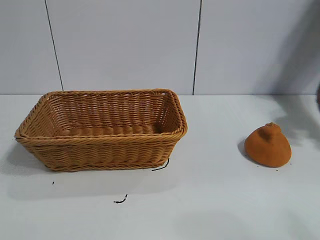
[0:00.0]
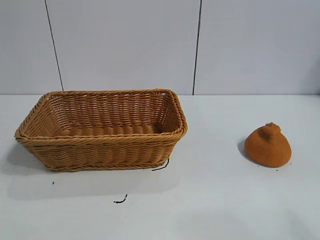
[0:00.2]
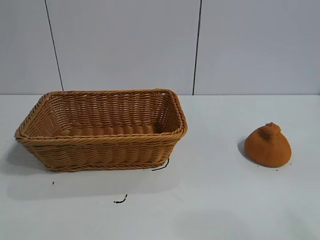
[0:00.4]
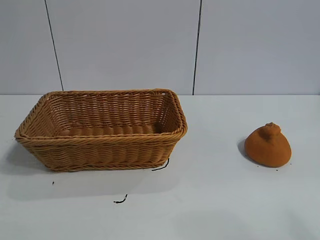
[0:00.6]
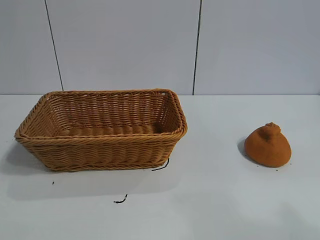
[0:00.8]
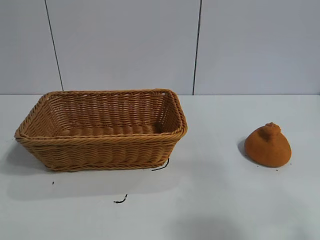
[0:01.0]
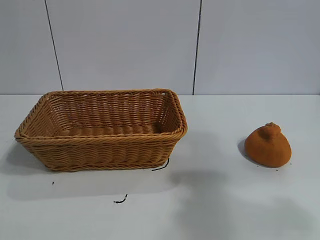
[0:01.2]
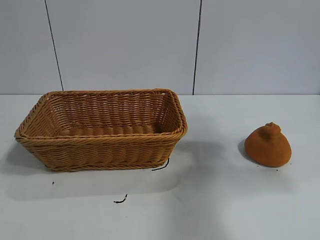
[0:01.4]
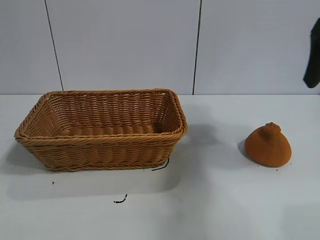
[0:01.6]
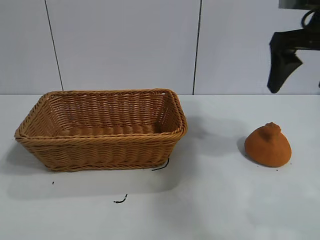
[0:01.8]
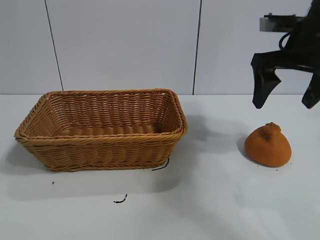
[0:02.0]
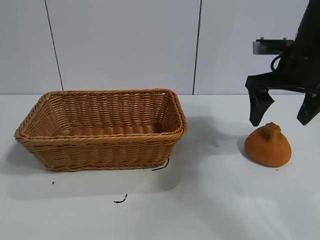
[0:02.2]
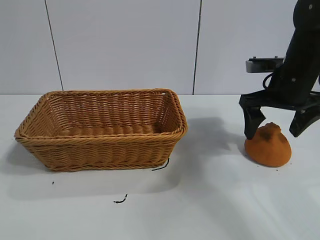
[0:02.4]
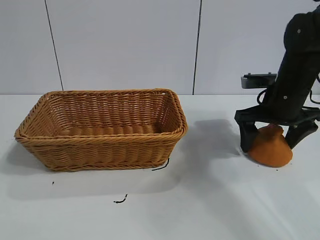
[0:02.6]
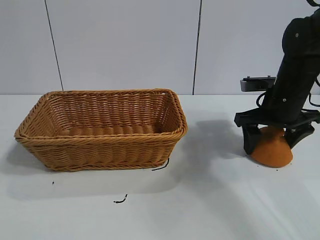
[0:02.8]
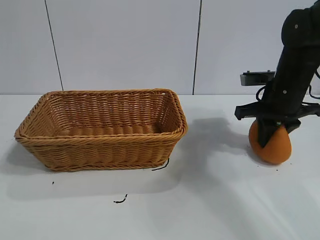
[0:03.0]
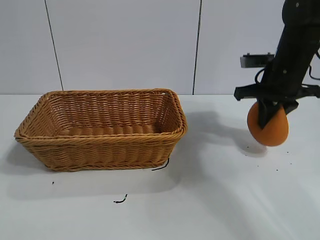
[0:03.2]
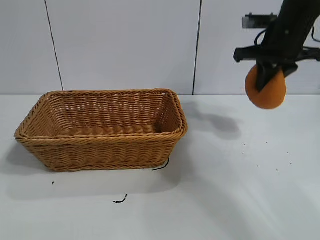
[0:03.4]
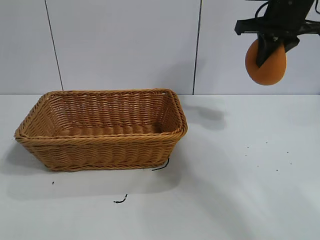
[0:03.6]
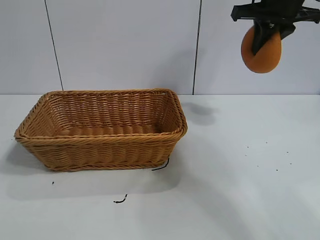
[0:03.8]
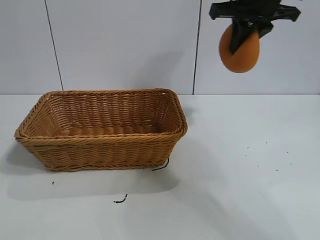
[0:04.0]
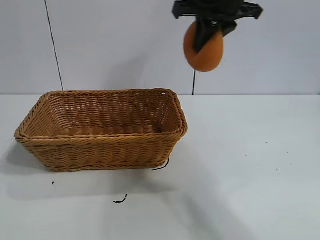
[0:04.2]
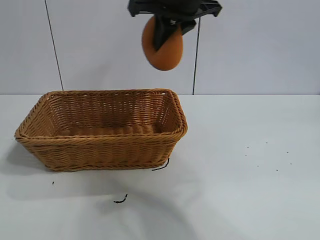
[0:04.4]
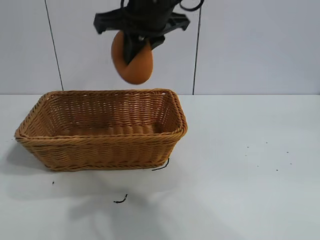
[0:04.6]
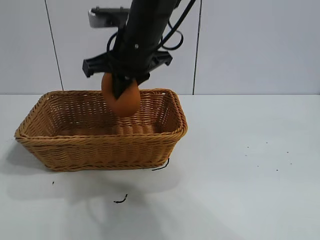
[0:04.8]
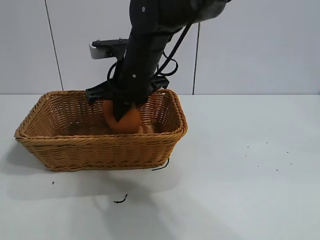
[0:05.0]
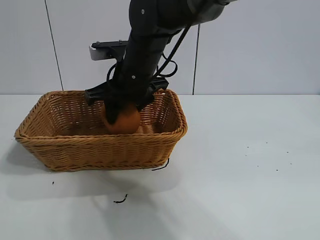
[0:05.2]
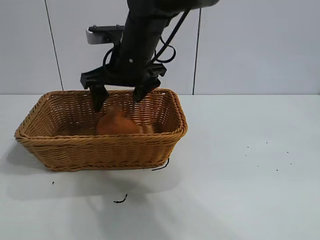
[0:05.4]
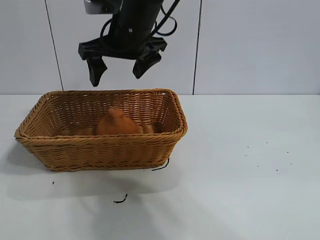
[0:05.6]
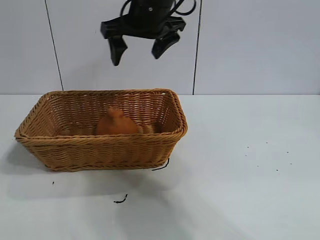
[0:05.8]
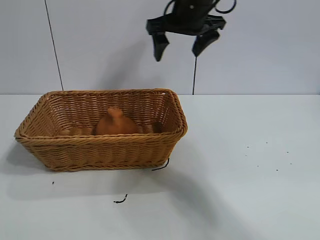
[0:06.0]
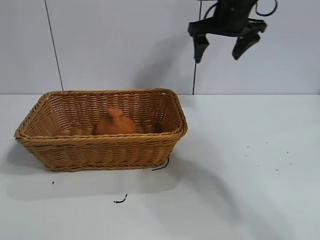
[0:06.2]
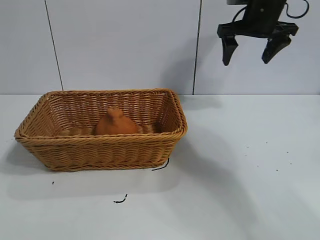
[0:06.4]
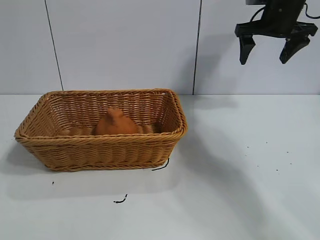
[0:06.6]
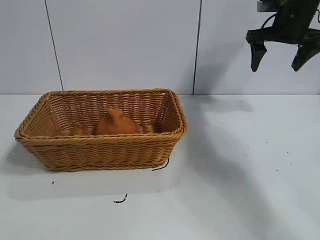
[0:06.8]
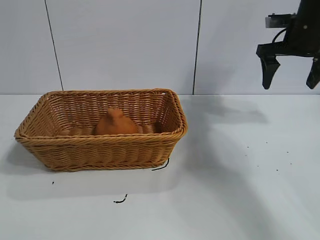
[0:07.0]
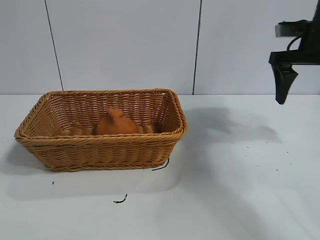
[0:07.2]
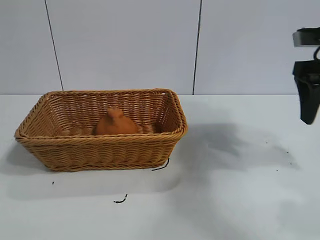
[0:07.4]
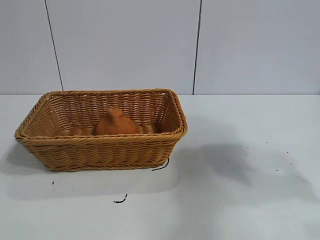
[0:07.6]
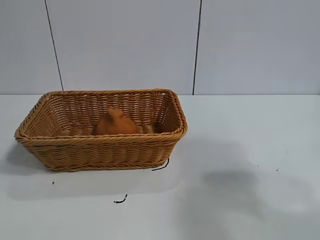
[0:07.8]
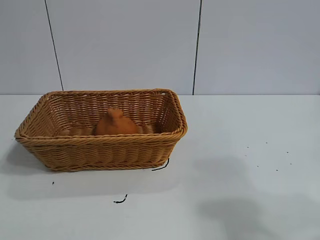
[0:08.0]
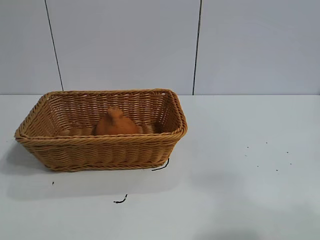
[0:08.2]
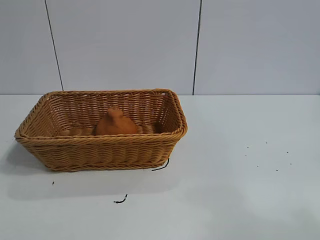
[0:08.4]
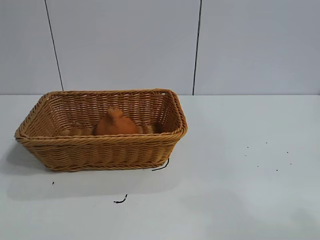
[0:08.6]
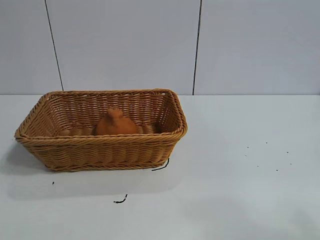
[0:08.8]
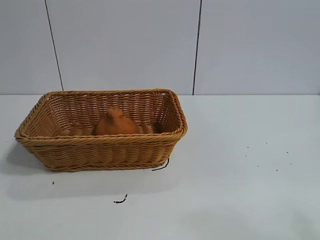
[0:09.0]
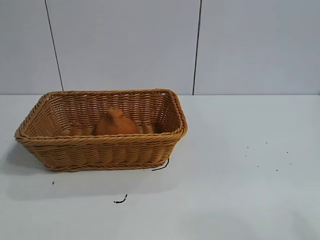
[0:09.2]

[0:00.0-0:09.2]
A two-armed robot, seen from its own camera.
Task of the whole recording: pick up the orange and put it into the basket.
Step, 0:00.8 to 0:03.0: Grasp the orange with right gripper.
Step, 0:03.2 to 0:05.2: Place the orange in the basket with right gripper.

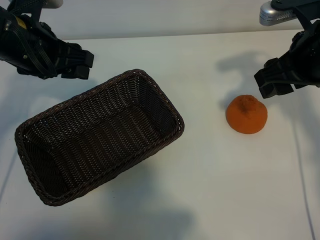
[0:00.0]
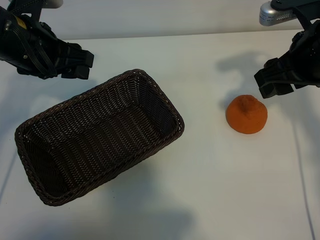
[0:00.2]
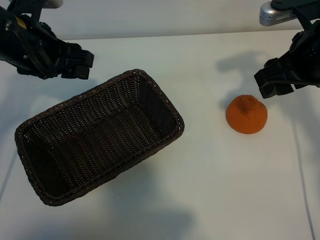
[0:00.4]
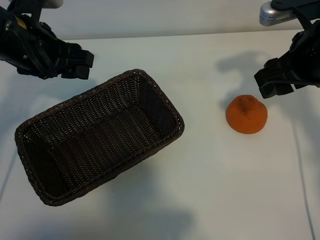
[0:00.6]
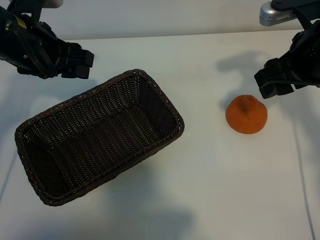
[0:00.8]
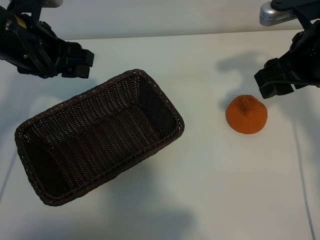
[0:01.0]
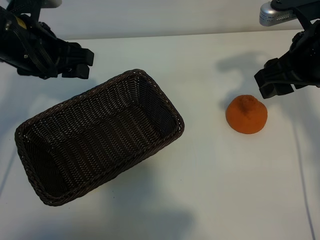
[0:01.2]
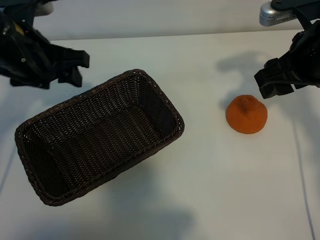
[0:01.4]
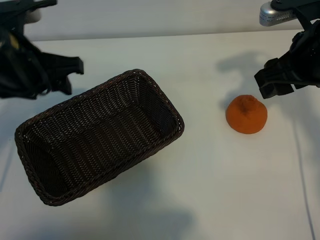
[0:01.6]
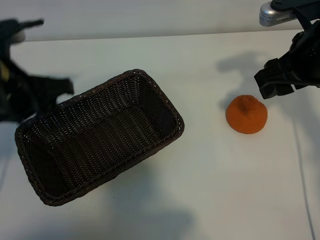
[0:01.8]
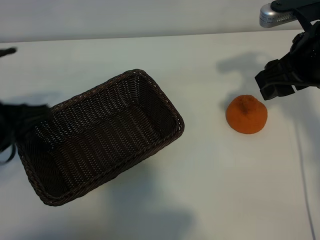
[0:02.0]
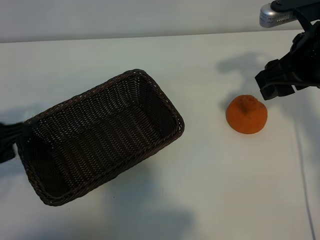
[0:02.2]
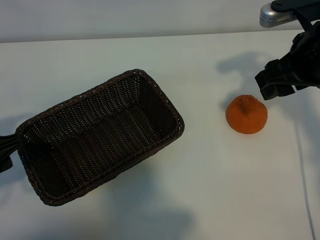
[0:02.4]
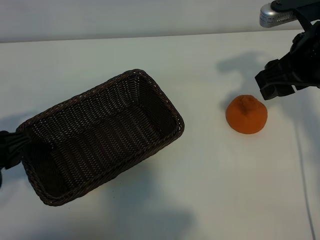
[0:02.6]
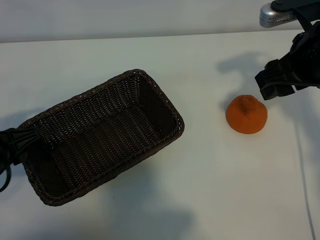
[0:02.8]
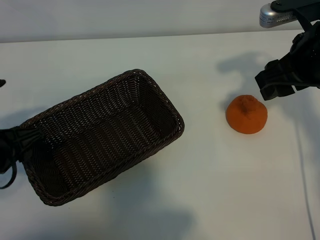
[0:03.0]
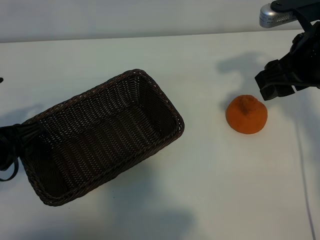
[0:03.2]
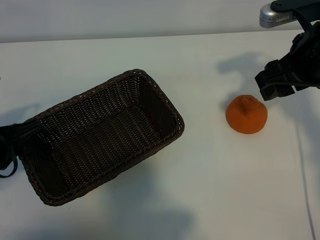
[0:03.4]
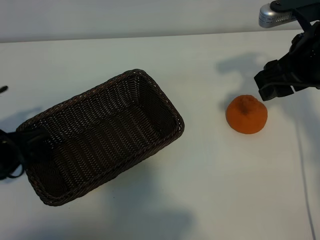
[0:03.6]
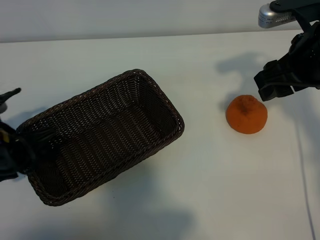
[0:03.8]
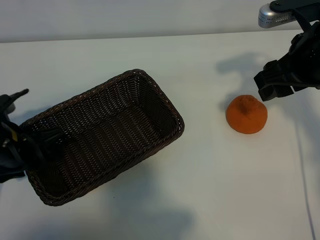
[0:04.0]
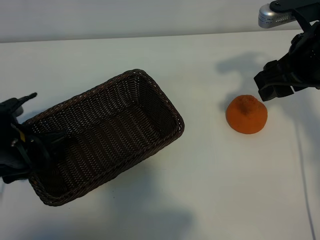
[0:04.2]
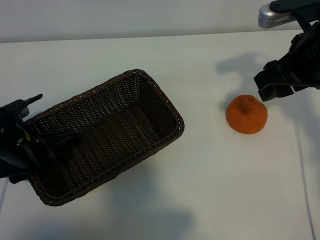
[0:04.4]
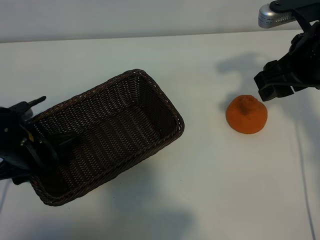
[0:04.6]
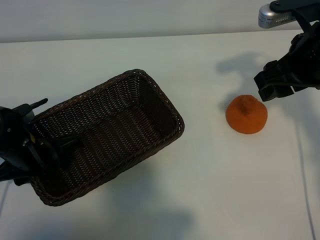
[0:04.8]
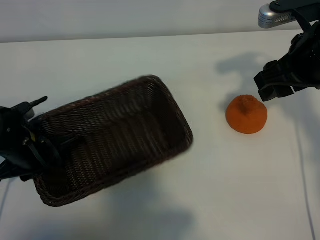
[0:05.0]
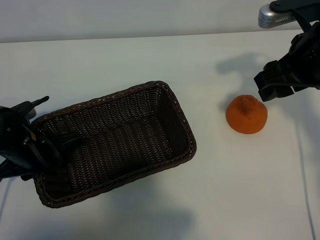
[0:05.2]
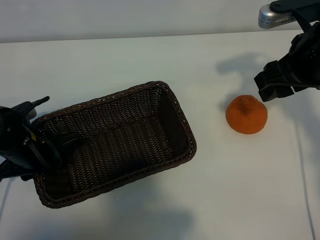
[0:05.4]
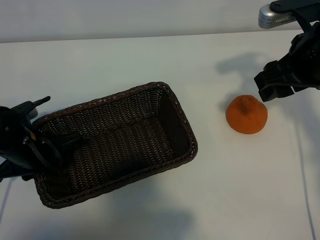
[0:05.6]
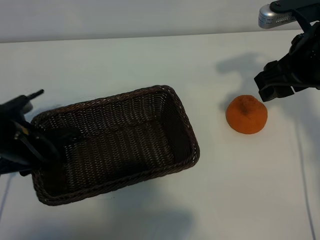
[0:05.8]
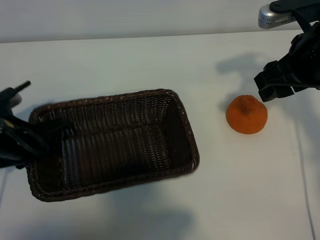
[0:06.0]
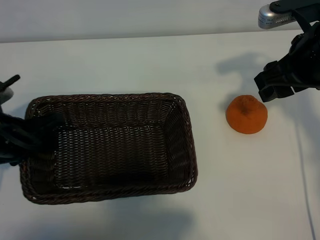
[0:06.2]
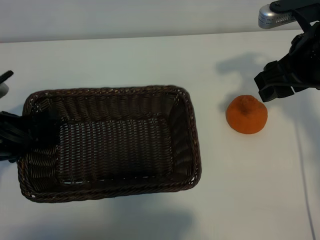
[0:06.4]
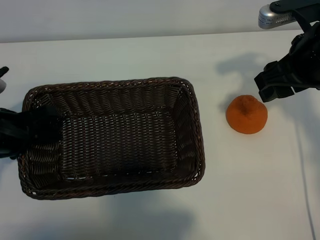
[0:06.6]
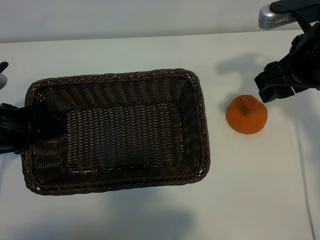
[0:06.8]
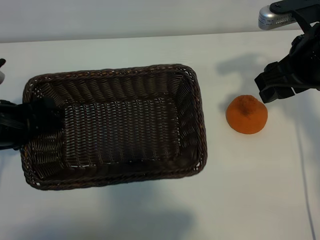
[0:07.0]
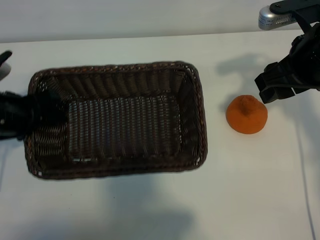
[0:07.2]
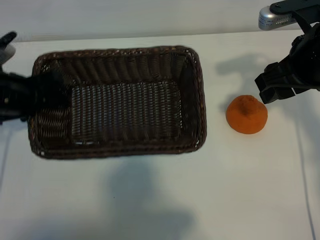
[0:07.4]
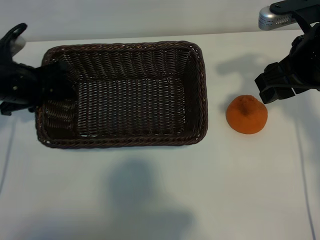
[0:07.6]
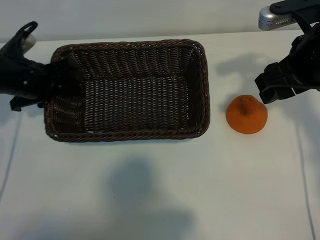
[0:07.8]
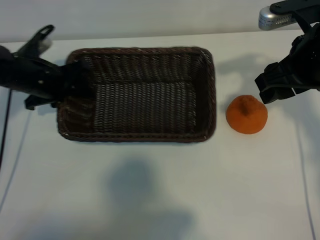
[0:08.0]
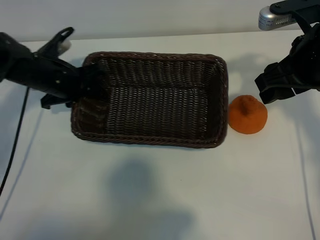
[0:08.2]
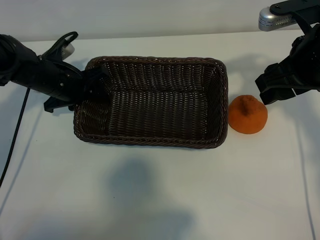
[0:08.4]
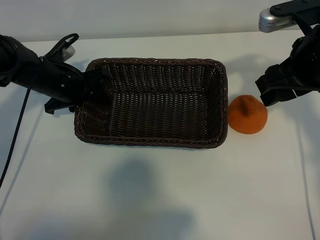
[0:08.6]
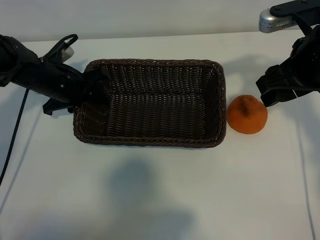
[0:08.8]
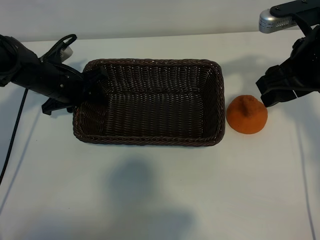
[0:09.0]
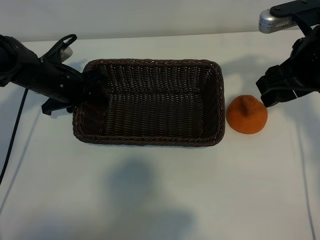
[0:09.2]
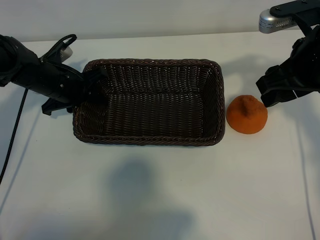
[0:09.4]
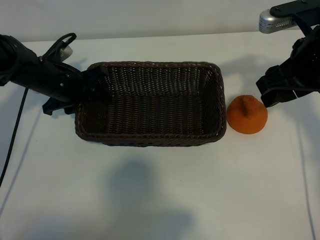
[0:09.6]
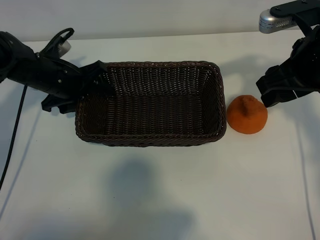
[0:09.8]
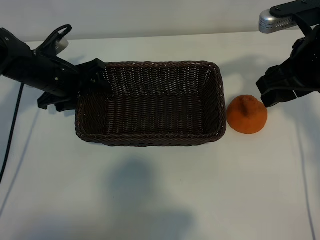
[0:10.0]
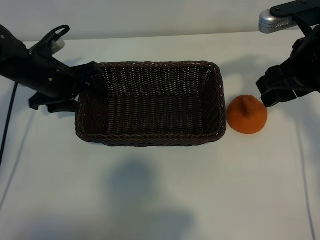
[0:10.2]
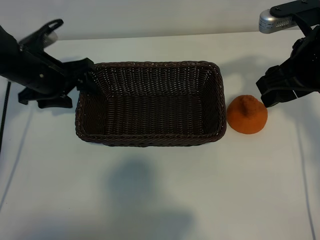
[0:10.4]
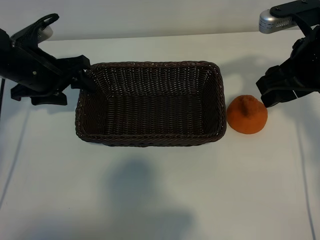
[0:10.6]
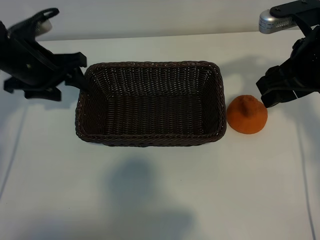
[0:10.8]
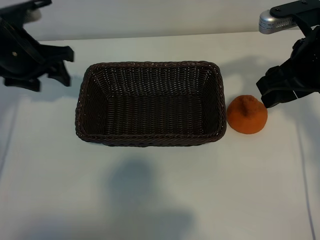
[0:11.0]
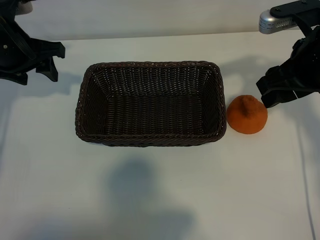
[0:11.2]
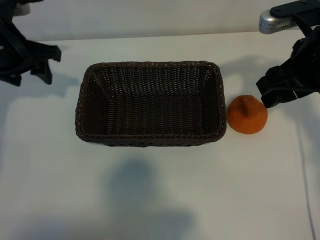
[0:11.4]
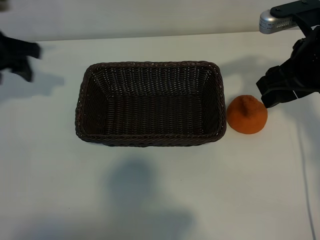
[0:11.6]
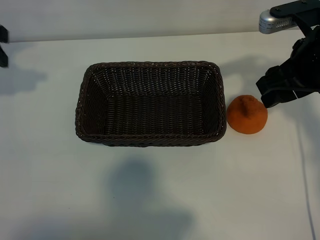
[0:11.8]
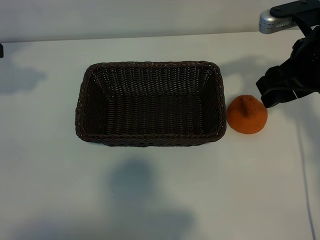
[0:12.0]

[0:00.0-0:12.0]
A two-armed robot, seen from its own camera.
Task of the whole recording: pick up the orange and put it into the basket.
Step, 0:01.2 to 0:05.2: Grasp the basket with left gripper.
Step, 0:05.4 to 0:09.8: Place the basket in the center of view with left gripper.

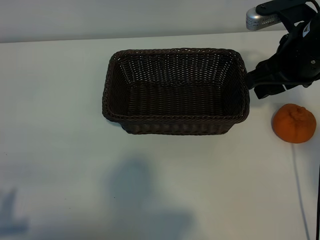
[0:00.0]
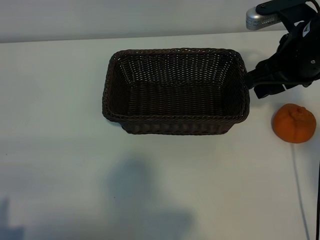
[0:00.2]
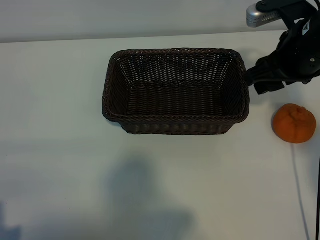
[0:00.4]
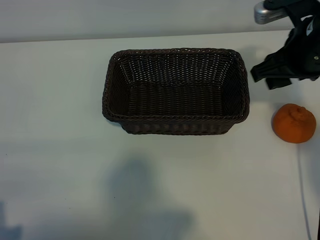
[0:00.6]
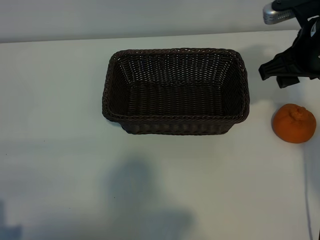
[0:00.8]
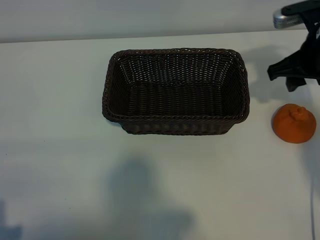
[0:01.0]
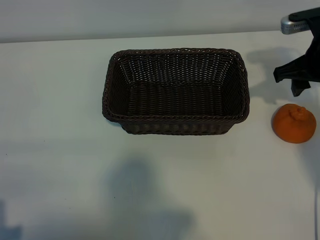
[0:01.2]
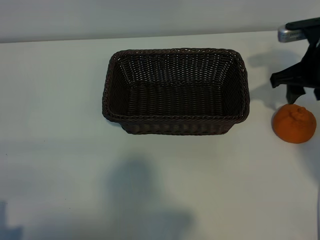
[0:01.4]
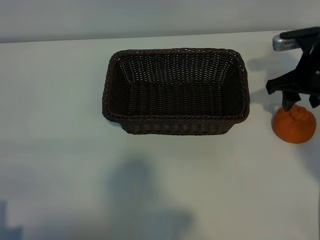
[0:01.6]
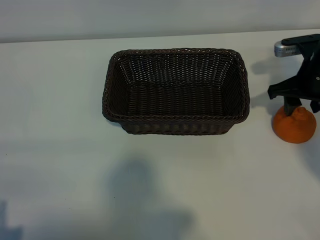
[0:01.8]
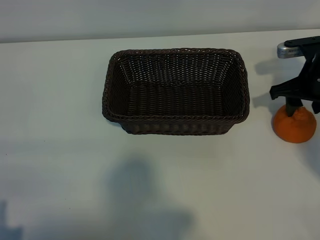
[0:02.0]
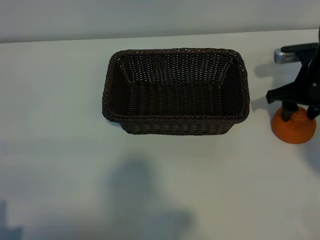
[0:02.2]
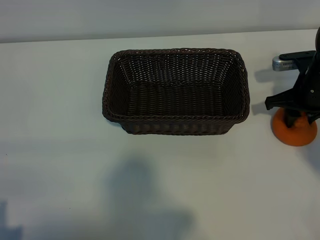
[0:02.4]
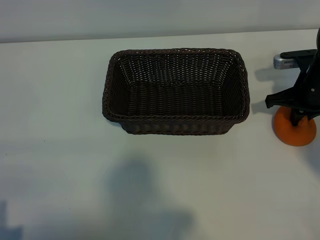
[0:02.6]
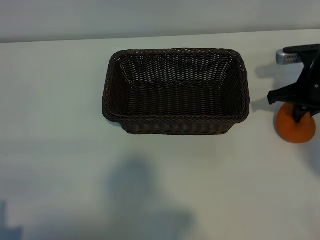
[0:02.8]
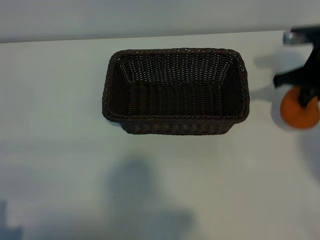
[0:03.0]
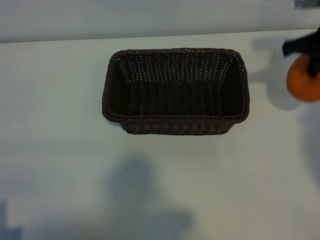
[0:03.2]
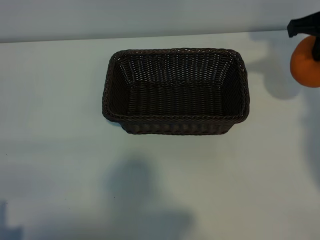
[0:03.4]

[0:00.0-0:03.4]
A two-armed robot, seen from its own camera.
Task of the whole recording: pick up the orange and put it into the basket.
Step, 0:00.0 to 0:02.6: Grasp the orange with right gripper.
